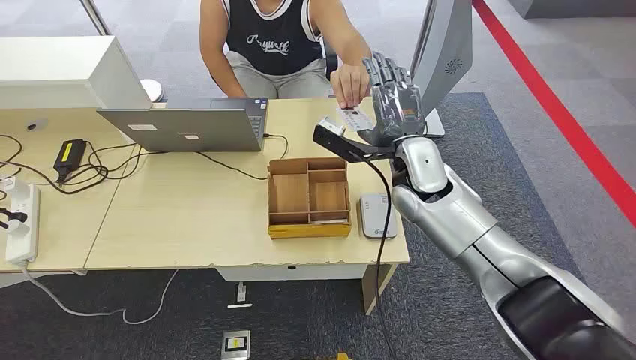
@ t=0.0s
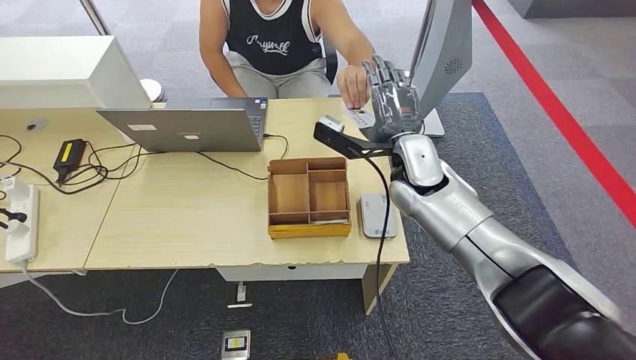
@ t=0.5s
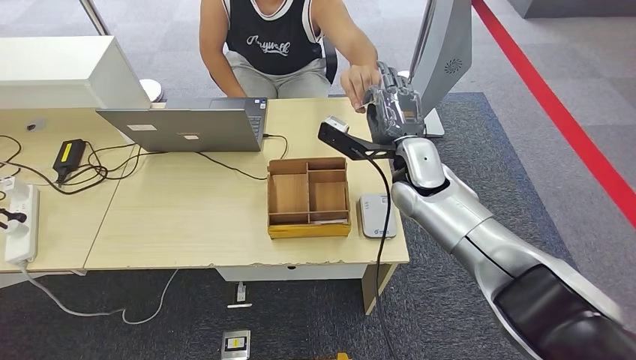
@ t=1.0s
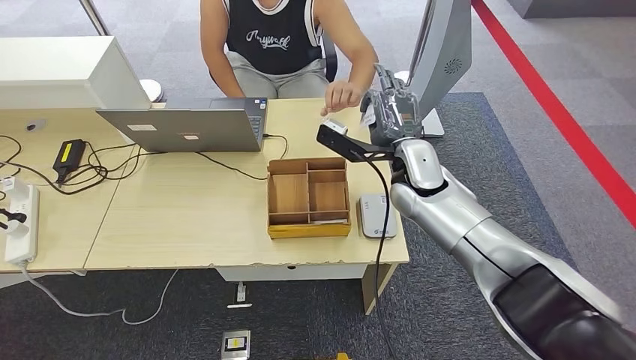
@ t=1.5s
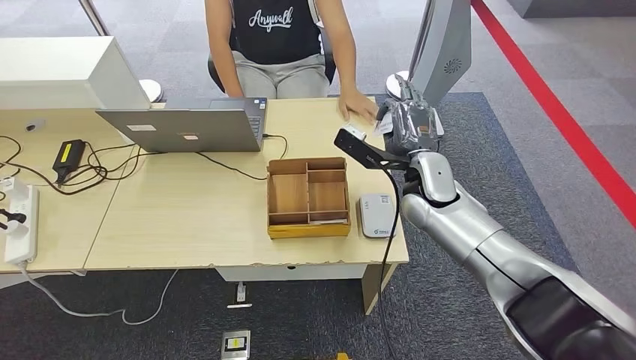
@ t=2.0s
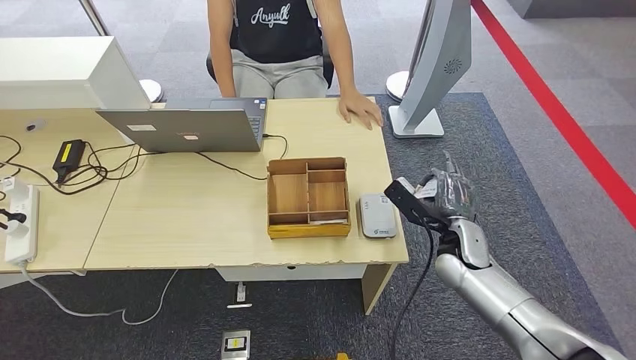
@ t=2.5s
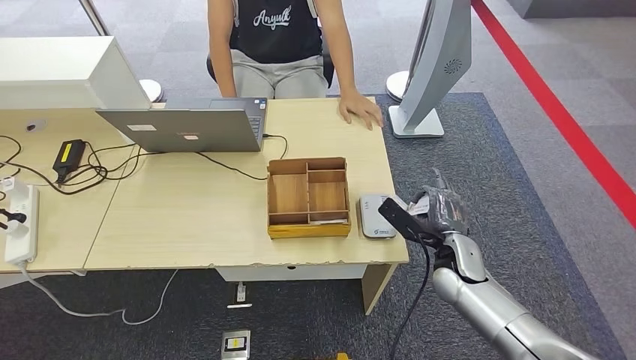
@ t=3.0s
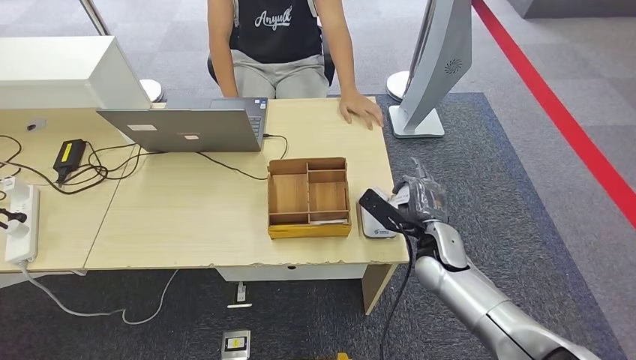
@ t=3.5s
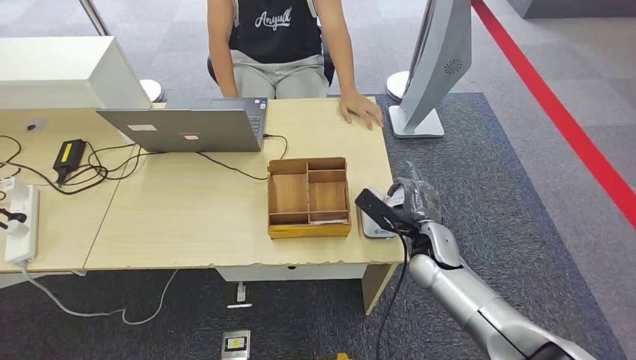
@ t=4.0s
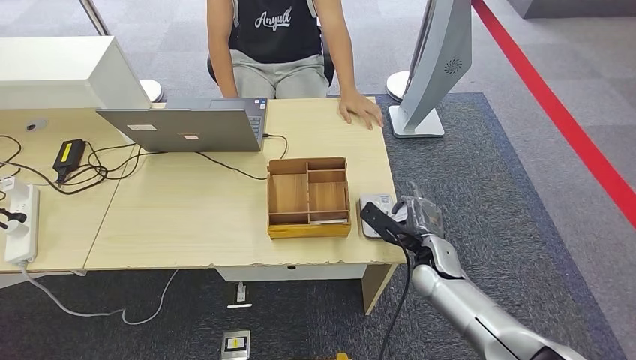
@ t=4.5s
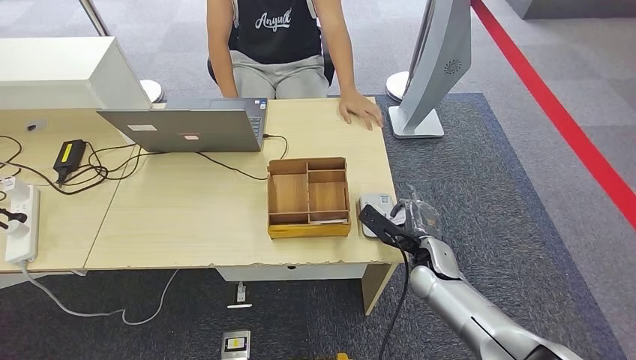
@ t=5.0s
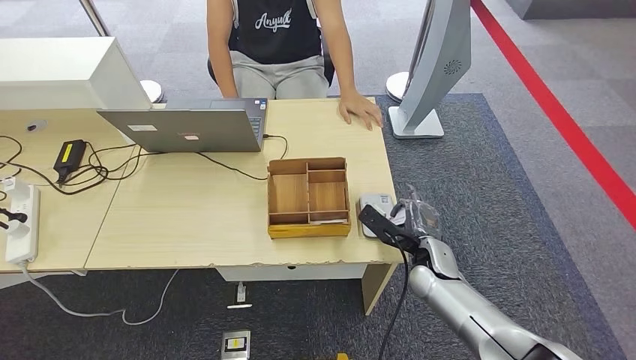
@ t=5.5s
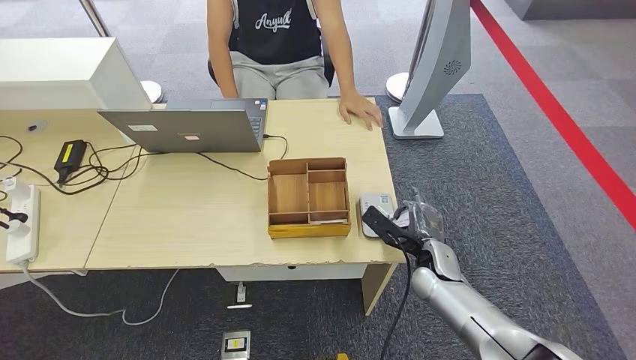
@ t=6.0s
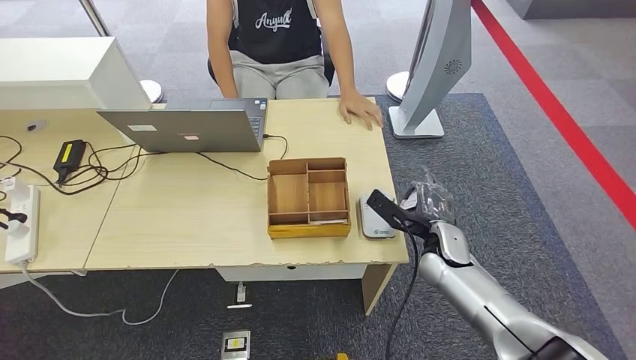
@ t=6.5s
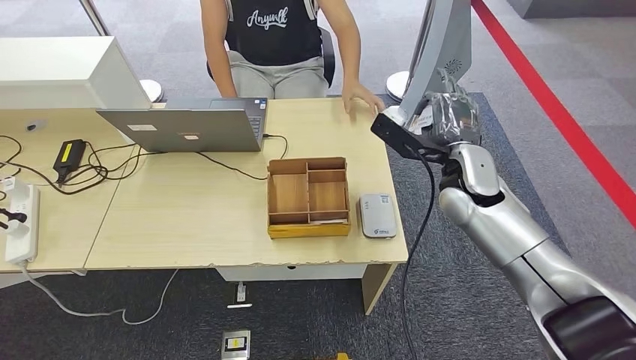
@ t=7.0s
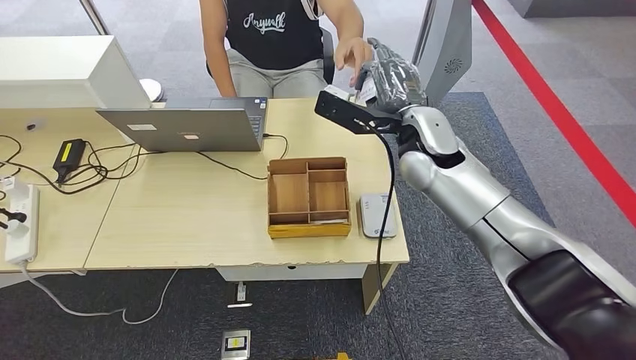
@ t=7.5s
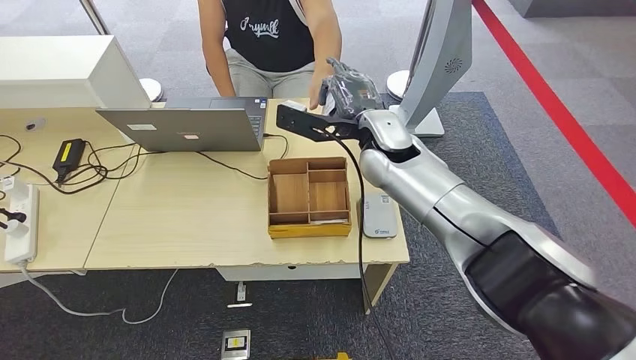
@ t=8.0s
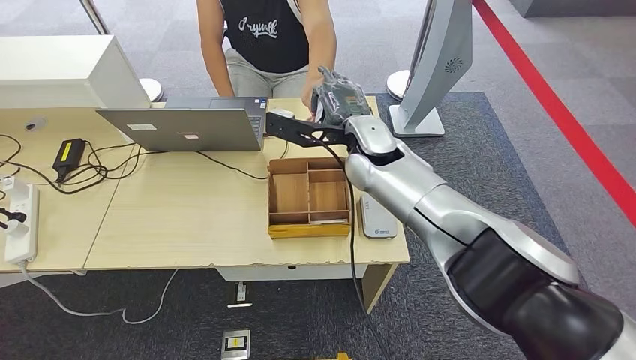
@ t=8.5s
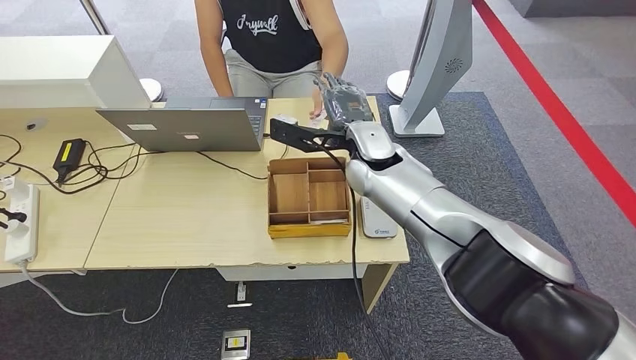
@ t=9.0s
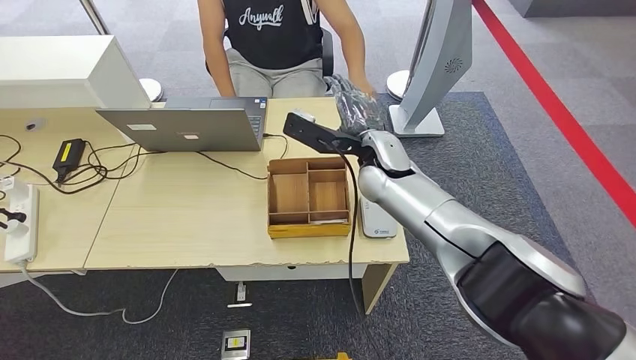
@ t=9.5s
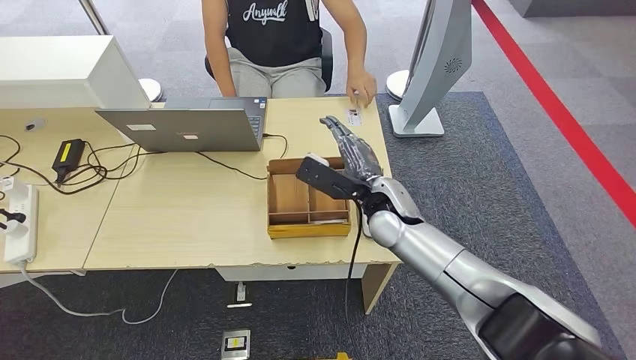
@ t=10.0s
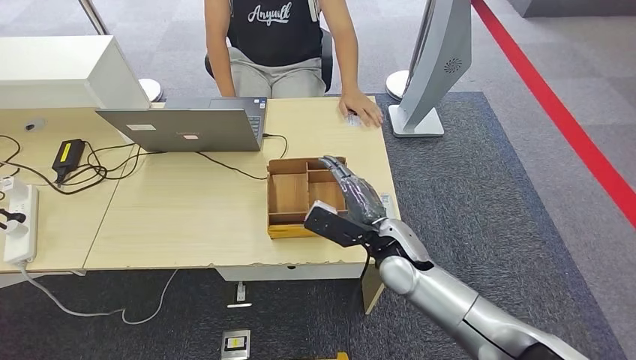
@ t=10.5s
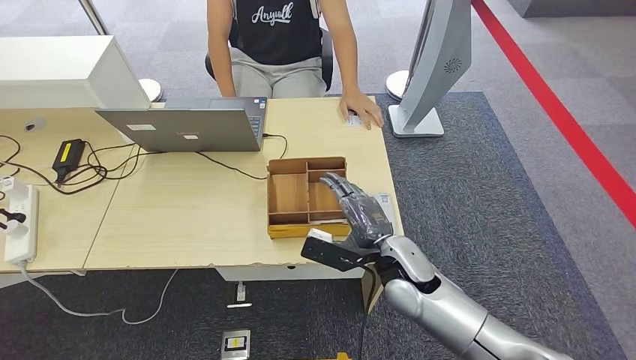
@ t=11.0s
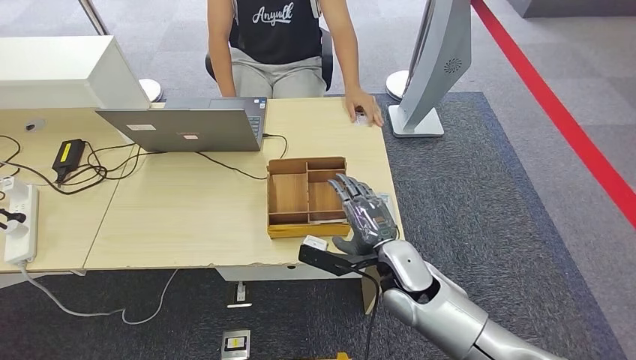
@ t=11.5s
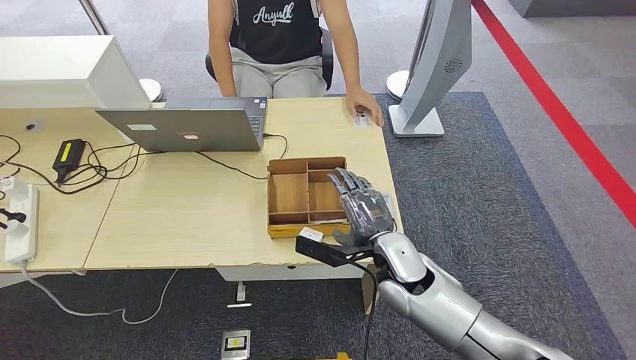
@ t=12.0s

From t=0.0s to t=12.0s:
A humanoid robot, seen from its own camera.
Step, from t=0.0s to t=1.5s: Take the ID card from the person's hand.
Step, from t=2.0s to t=7.5s: Place the ID card on the card reader.
From t=2.0s to t=4.0s: The right hand moves downward and backward, some 15 cm.
From t=4.0s to t=6.0s: The right hand moves some 5 cm.
From t=8.0s to t=10.0s: The right hand heads downward and backward, covering some 10 cm.
From t=10.0s to t=12.0s: The right hand goes some 10 cm backward and downward.

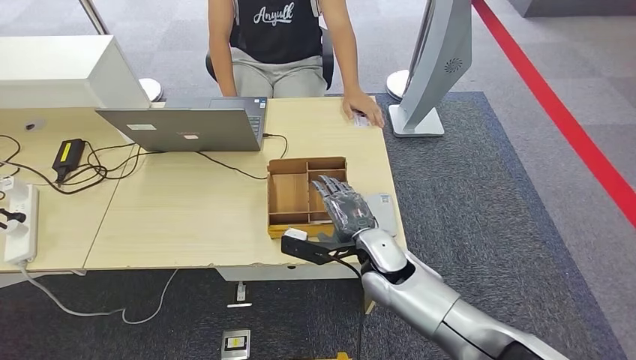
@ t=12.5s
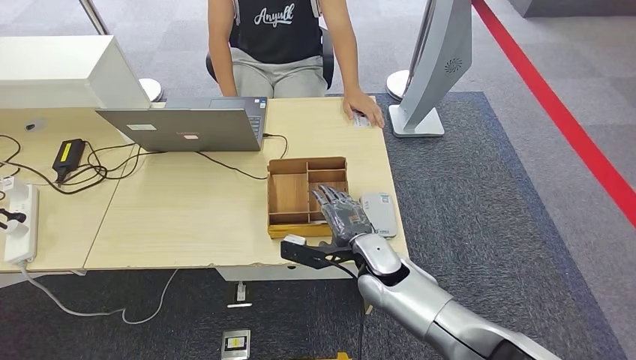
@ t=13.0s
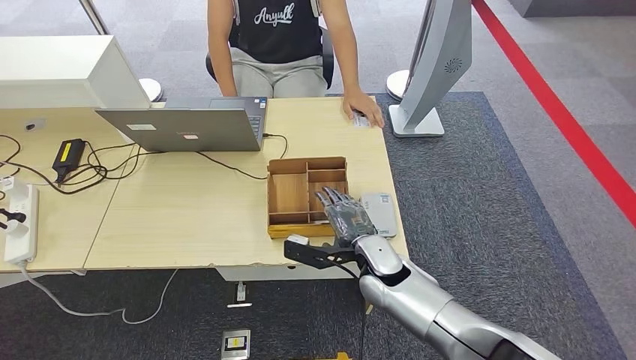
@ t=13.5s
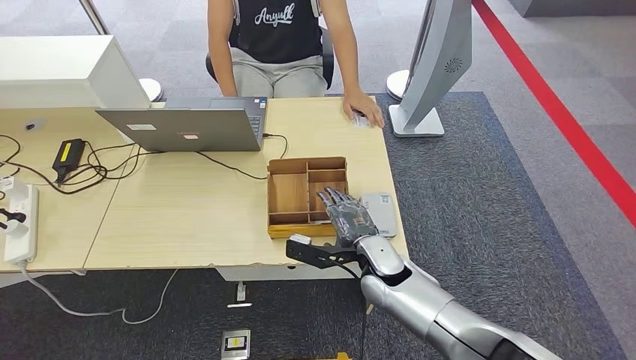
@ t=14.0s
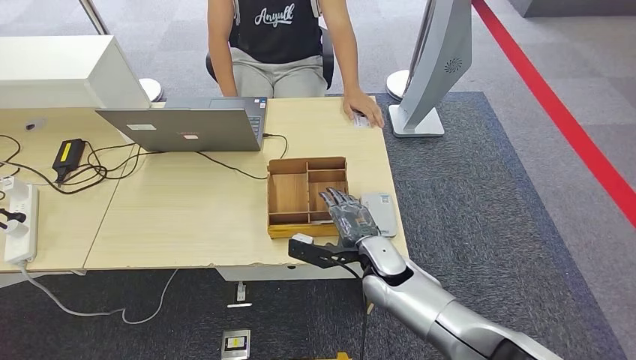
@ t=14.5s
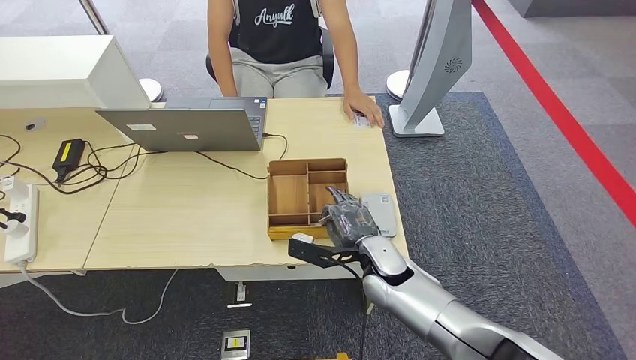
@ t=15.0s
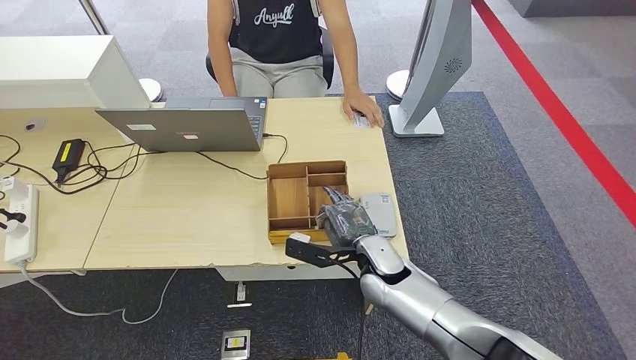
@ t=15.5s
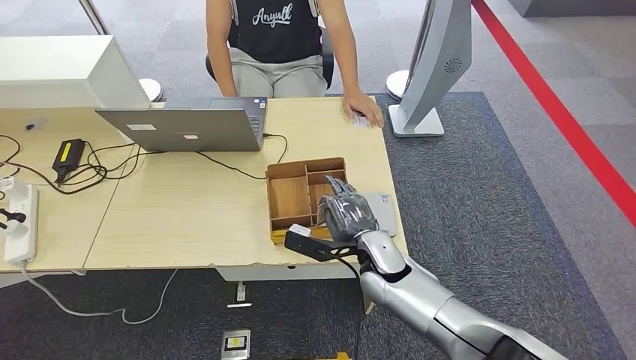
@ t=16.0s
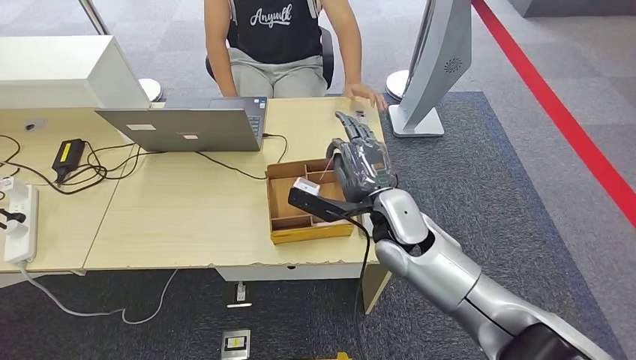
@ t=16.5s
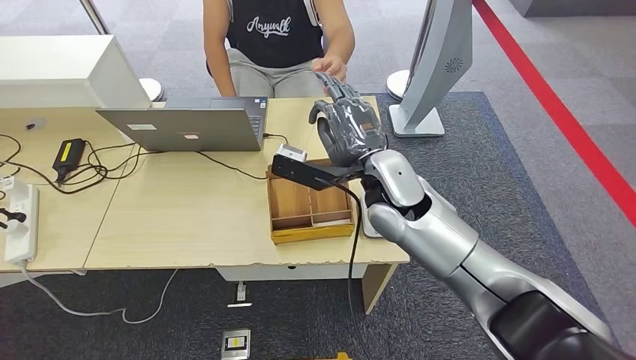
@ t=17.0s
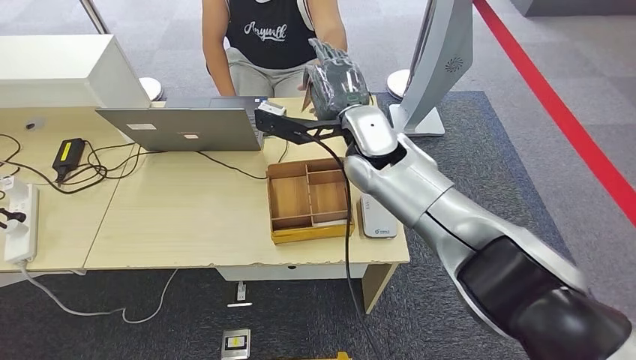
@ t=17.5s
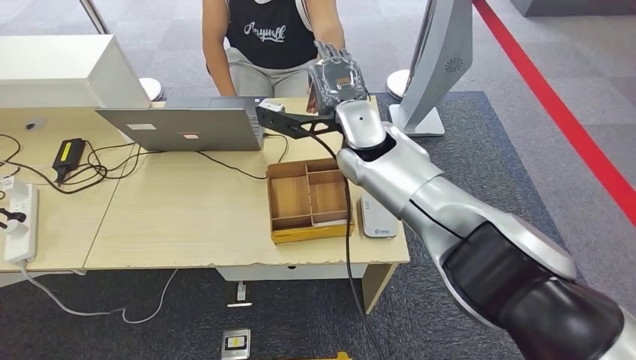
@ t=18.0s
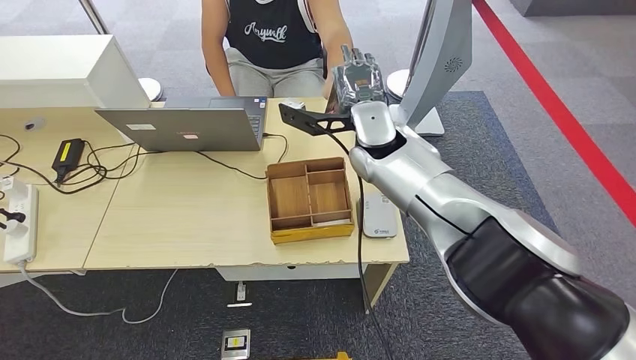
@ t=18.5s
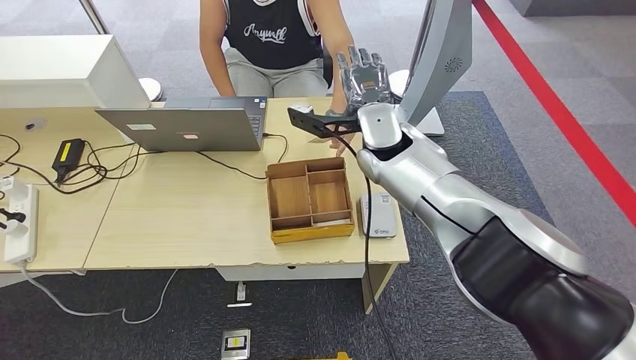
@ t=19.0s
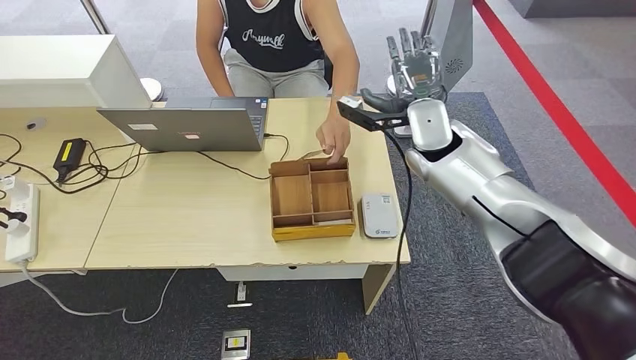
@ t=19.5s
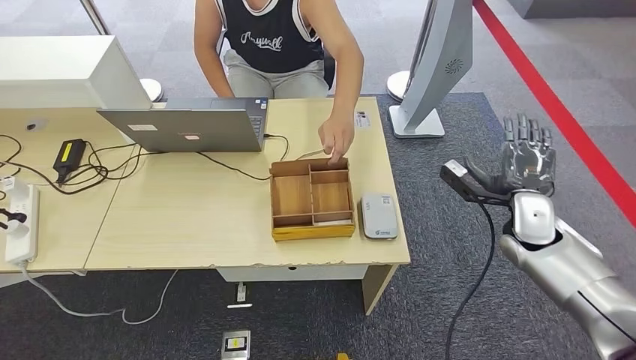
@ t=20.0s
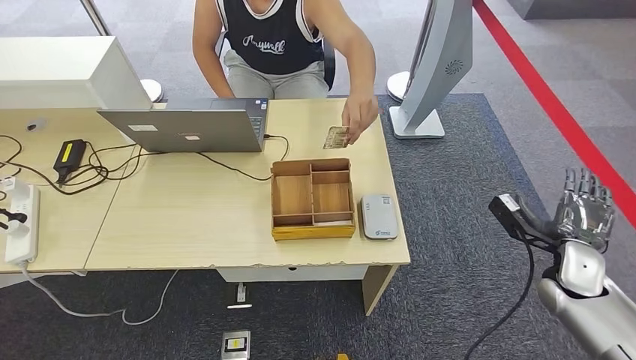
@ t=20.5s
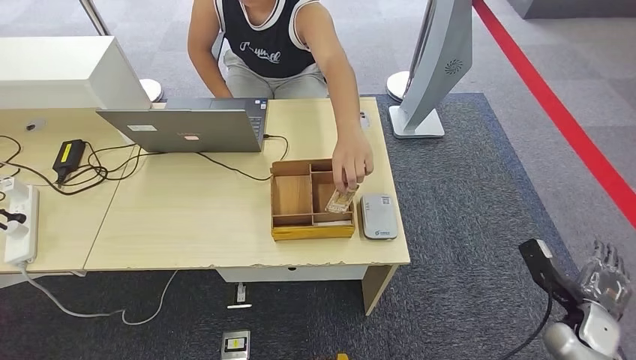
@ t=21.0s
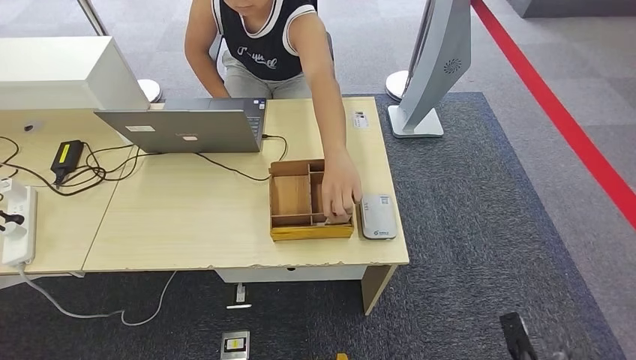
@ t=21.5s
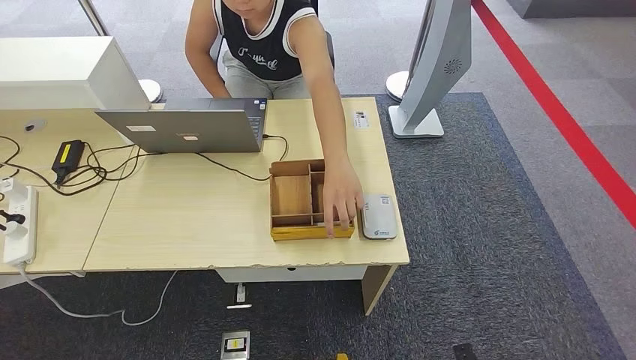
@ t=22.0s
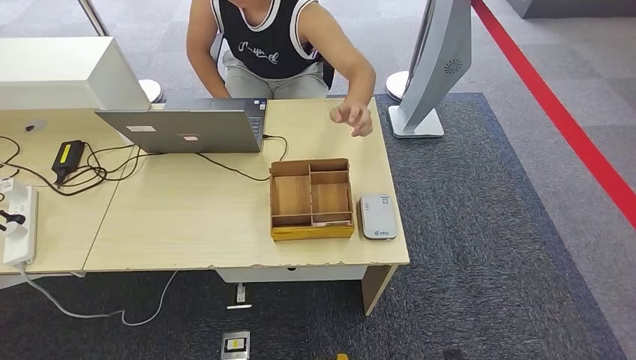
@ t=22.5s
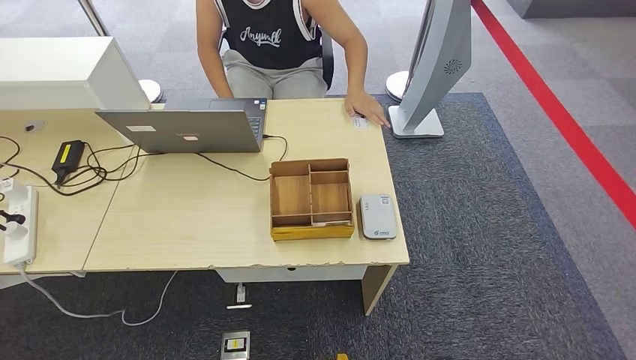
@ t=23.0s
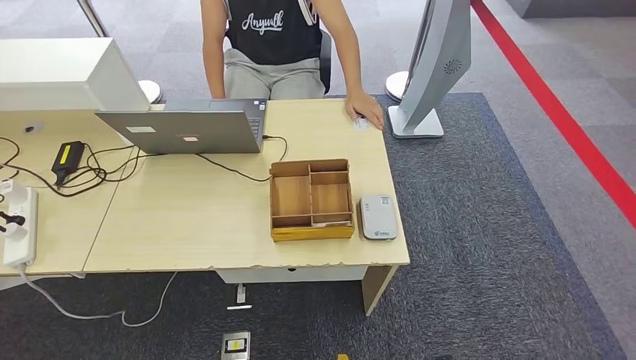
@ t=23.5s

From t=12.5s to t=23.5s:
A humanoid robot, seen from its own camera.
Step, from t=12.5s to t=17.0s: Pick up the room key from the key card box.
From t=12.5s to t=16.0s: The hands move only a little.
From t=20.0s to t=21.5s: The right hand shifts about 35 cm backward and downward.
From t=21.5s to t=23.5s: The right hand is displaced to the left by roughly 10 cm, while the left hand heads backward and to the right, covering some 10 cm.
